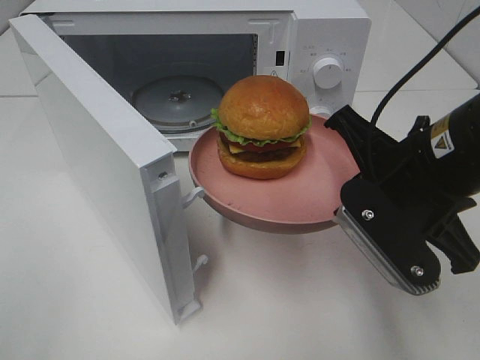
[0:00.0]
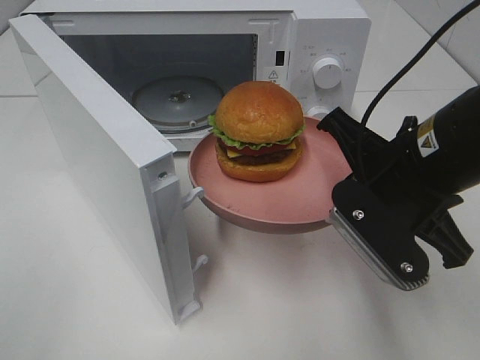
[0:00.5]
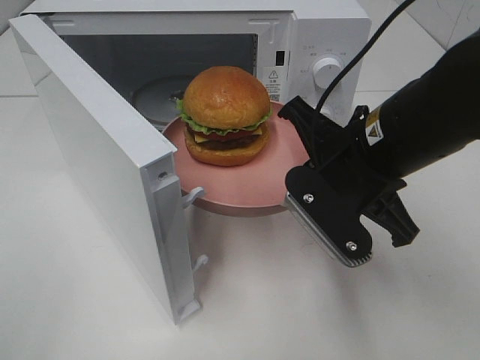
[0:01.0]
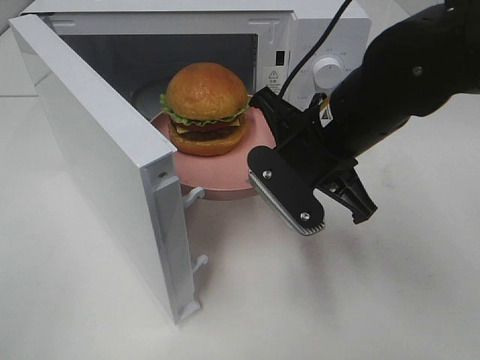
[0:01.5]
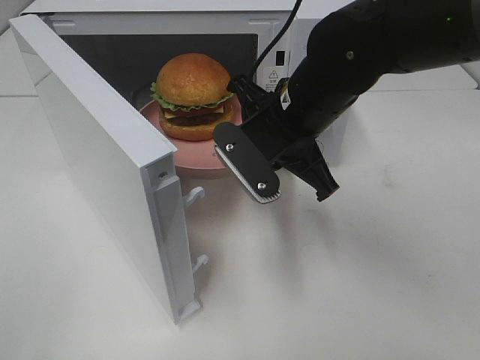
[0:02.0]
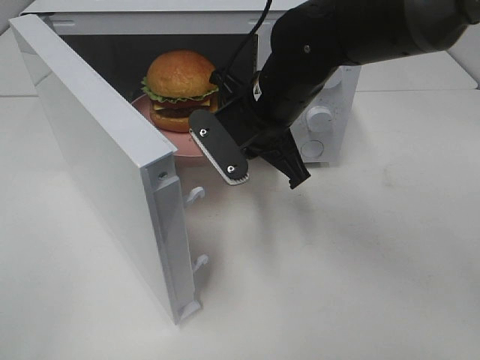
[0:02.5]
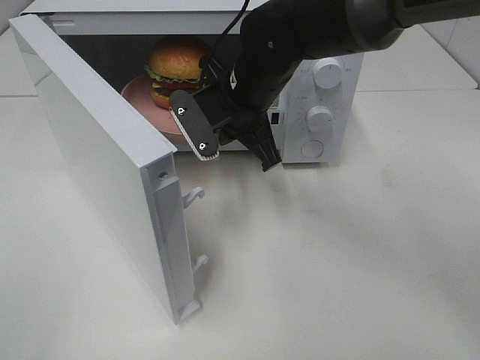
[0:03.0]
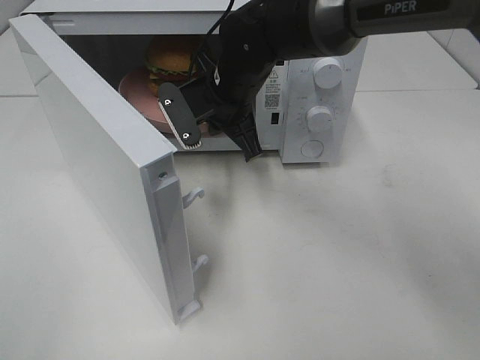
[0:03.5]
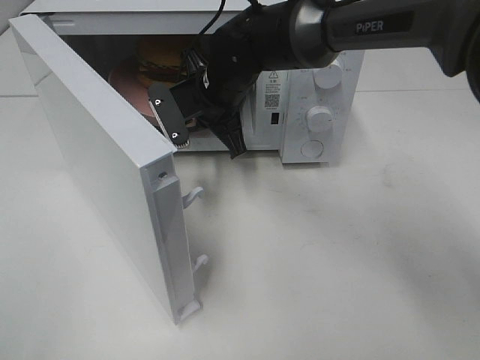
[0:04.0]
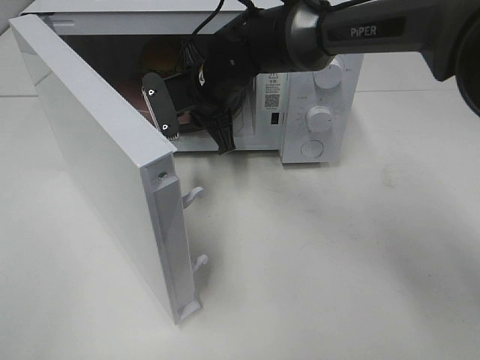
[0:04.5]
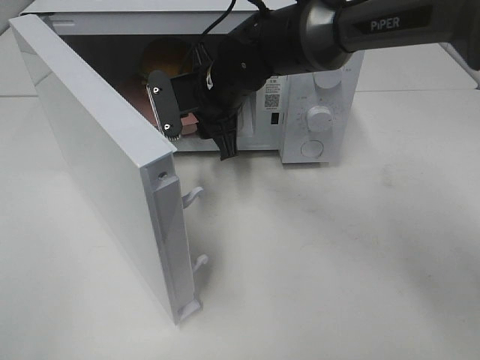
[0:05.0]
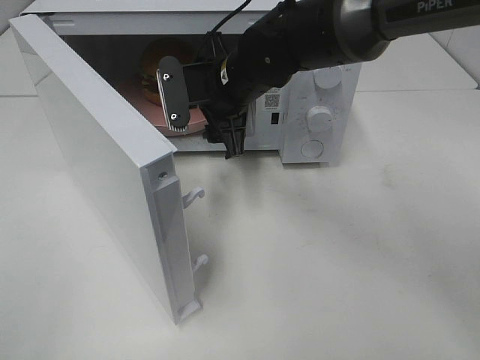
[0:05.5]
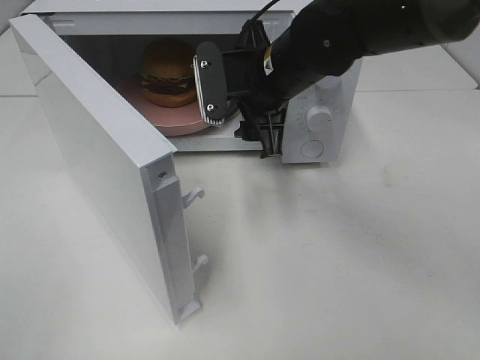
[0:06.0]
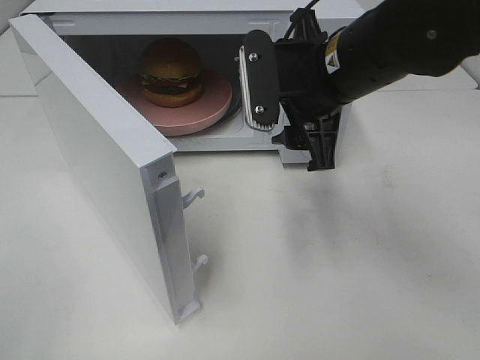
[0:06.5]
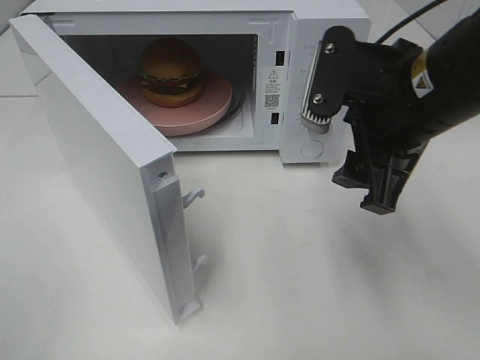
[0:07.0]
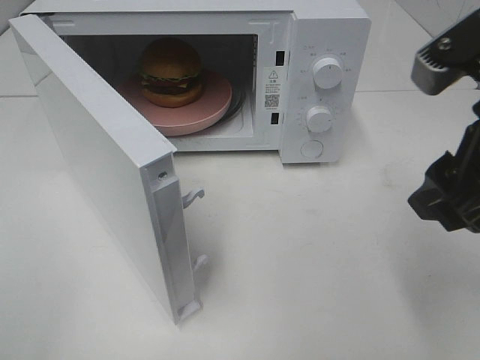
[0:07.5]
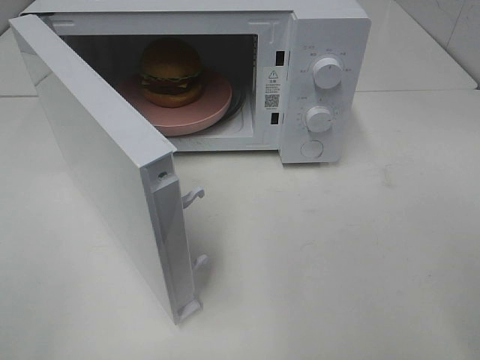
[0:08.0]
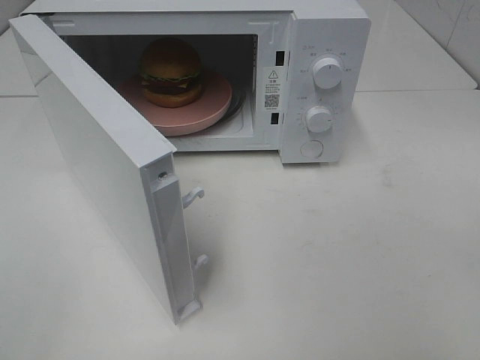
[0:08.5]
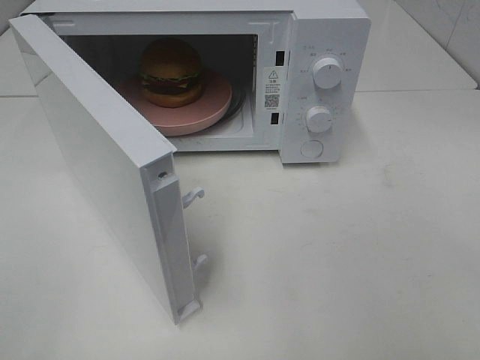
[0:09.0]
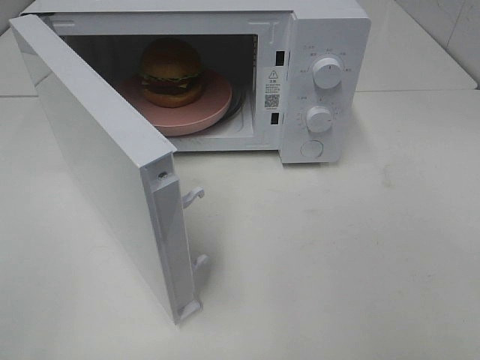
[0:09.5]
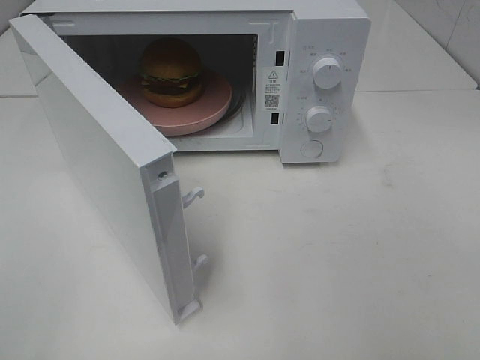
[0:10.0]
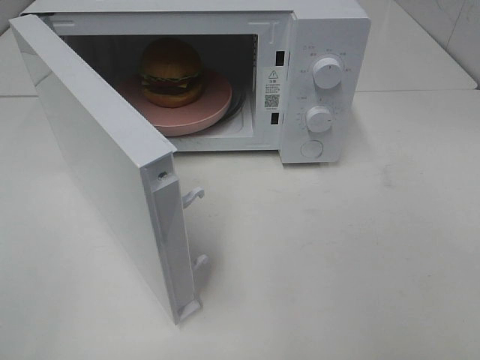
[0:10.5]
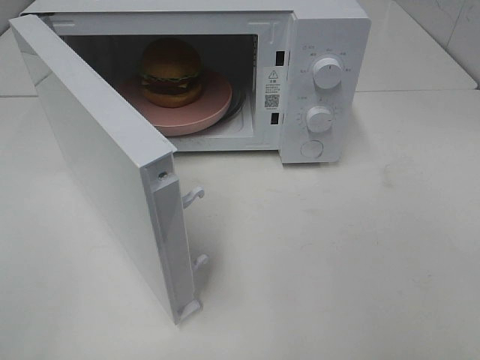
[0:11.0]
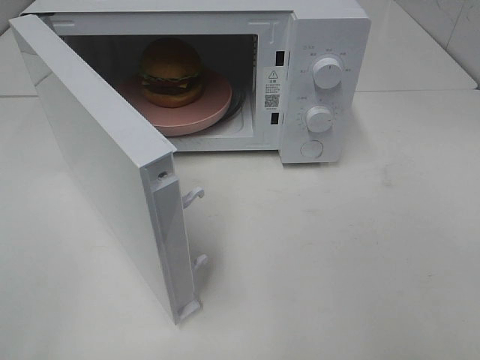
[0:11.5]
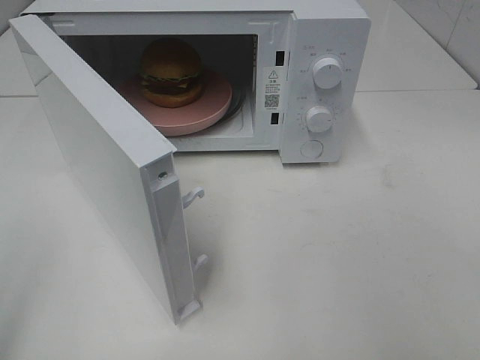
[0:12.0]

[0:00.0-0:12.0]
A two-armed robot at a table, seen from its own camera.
Task of the whole recording: Heat the burger.
Step, 0:00.0 to 0:05.0: Right hand: place the plate in the microwave.
0:00.0 to 0:02.0: The right gripper goes about 15 cm forward and to the left.
0:02.0 to 0:04.0: The right gripper heads forward and to the left, covering approximately 15 cm.
0:04.0 to 0:06.0: The right gripper shifts some 10 cm to the right and backward, and opens.
0:06.0 to 0:08.0: The right gripper heads backward, to the right and upward, covering about 30 cm.

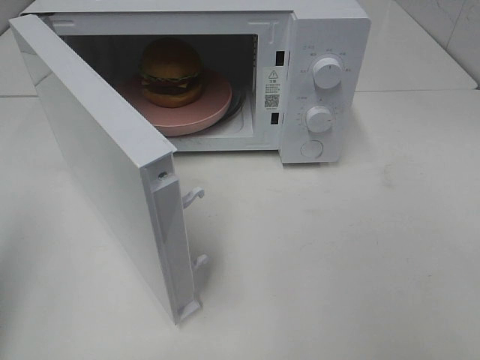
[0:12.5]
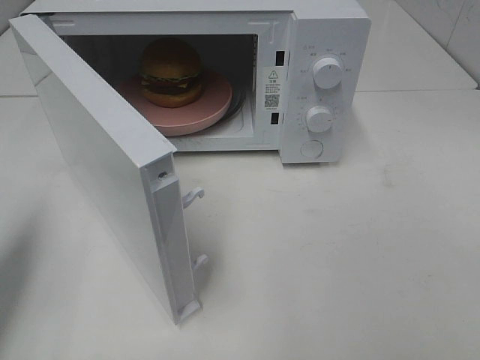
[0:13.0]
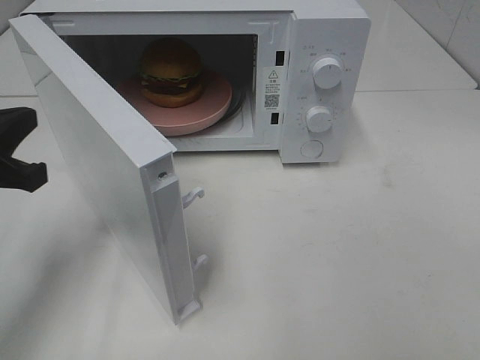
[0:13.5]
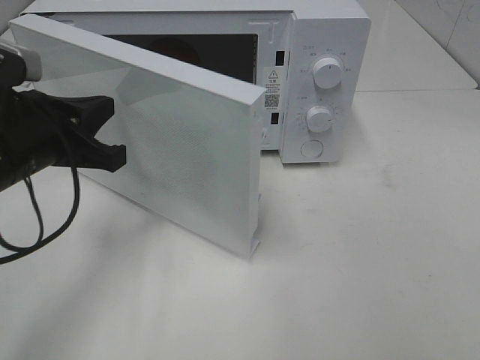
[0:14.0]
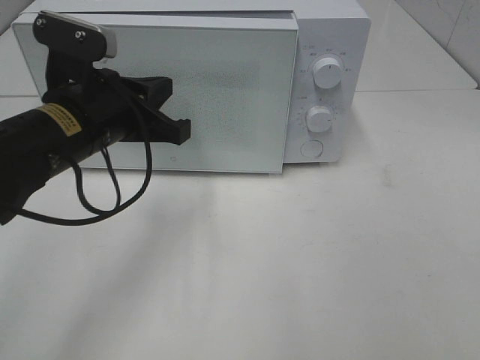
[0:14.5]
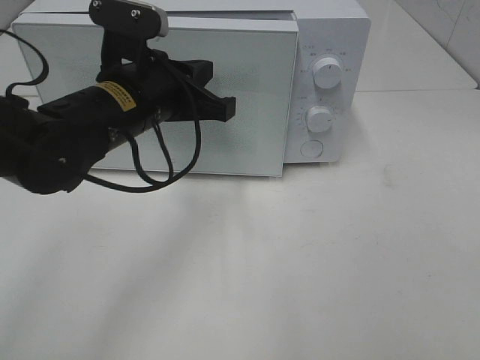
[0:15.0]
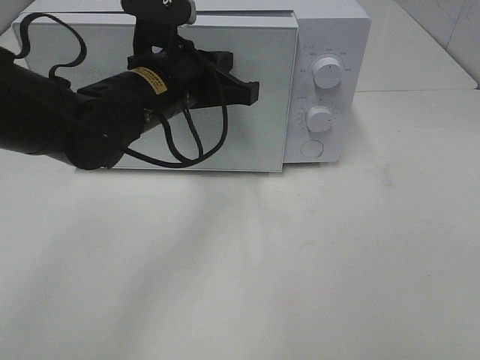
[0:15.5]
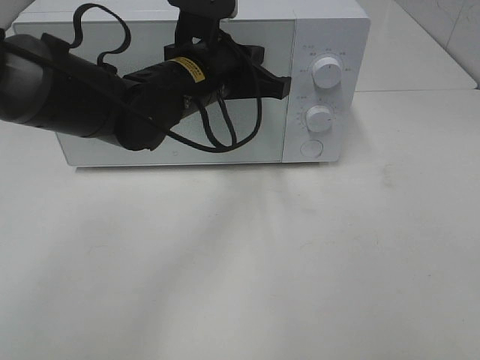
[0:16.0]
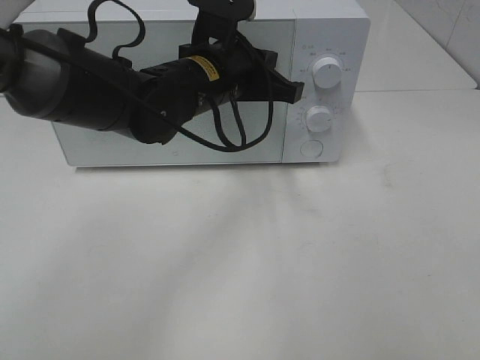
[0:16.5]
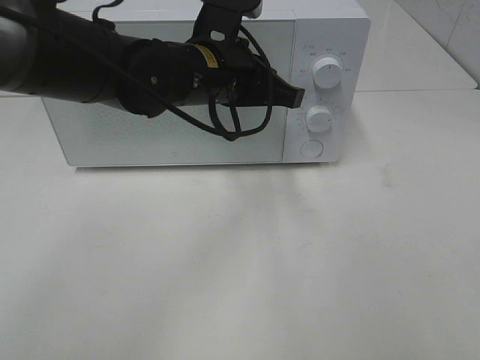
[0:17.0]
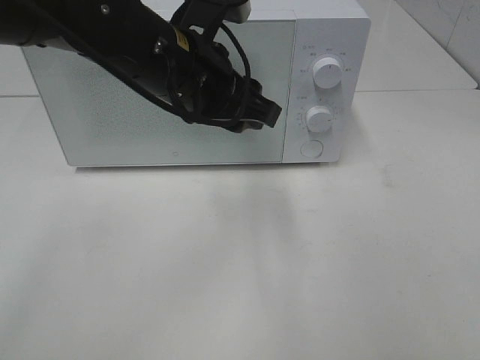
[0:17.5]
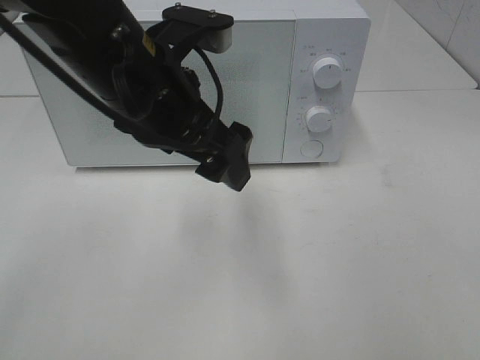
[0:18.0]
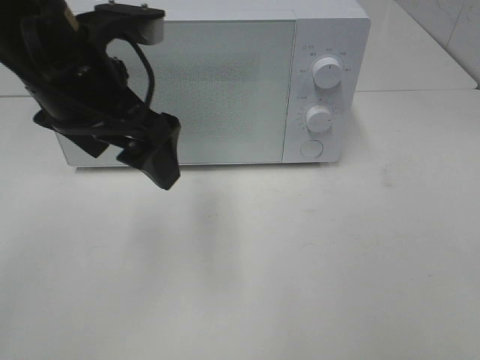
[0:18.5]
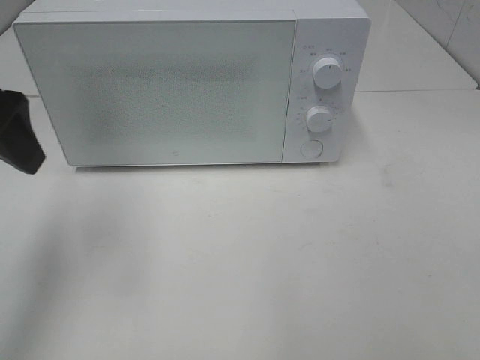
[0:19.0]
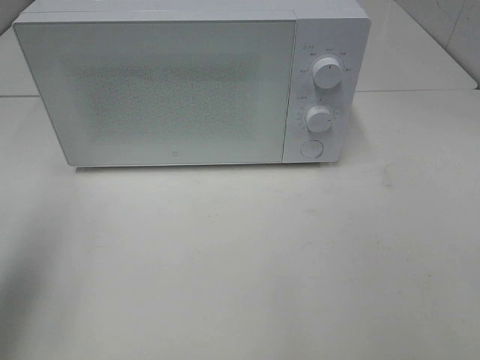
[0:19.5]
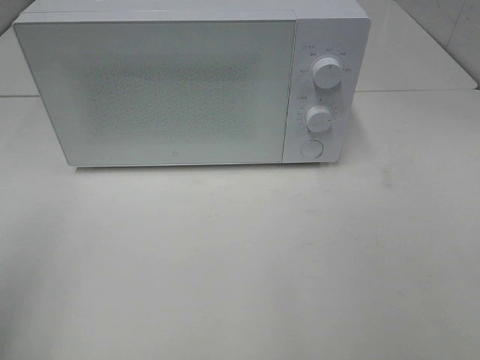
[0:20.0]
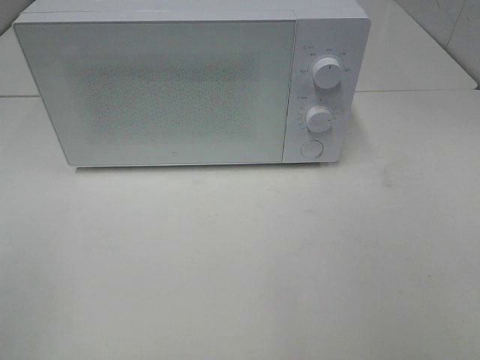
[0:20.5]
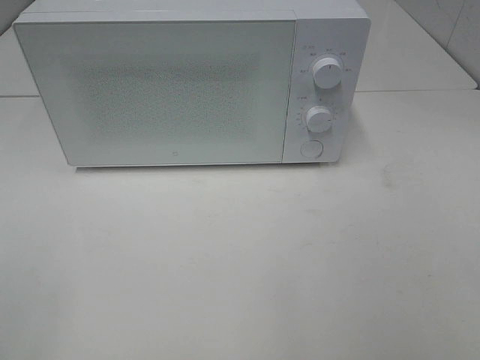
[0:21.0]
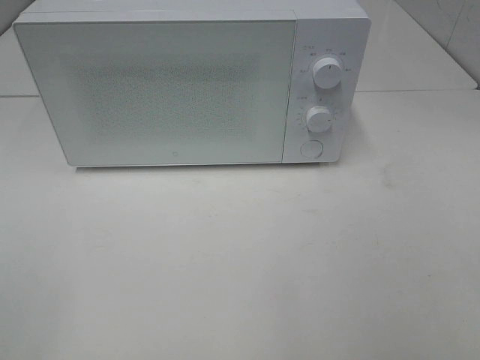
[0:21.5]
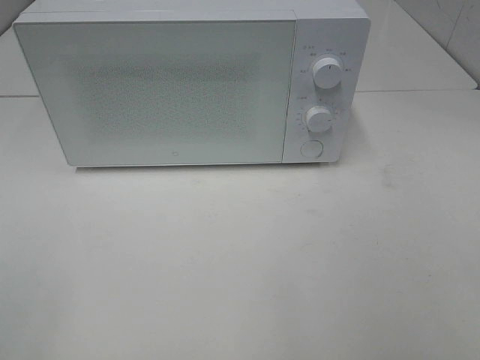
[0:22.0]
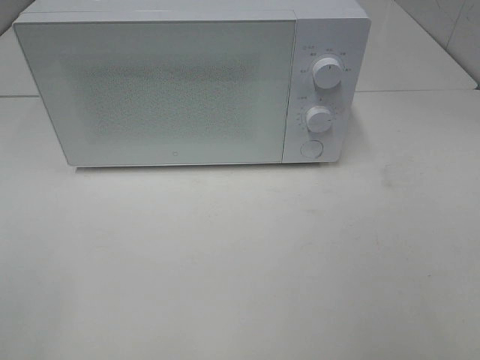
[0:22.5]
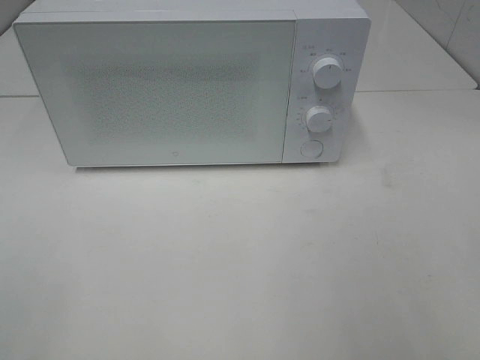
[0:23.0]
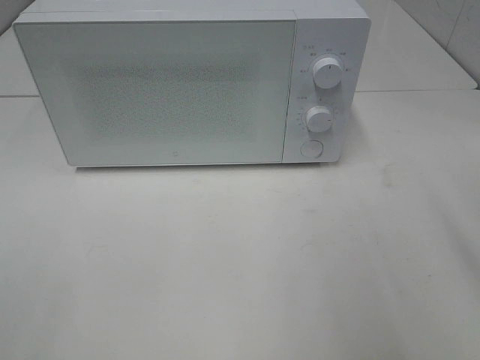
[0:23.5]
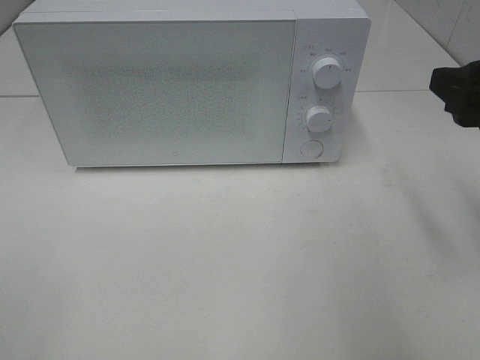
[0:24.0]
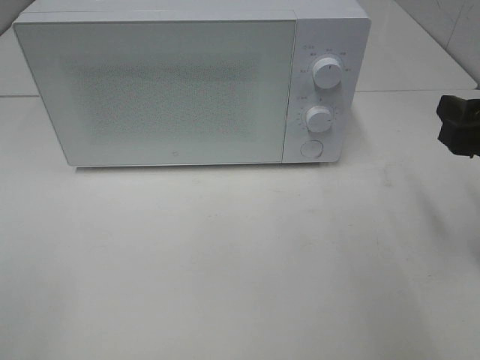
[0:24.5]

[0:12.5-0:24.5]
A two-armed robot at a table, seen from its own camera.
Task of the whole recording: Heat the burger.
Step, 0:12.5 to 0:17.0: Left hand: close the microwave door.
0:12.5 to 0:14.5: The left gripper heads to the right, forward and downward, covering approximately 25 cm.
0:14.5 to 0:16.5: The left gripper shifts approximately 15 cm to the right and forward.
0:16.5 to 0:18.5: The left gripper moves to the left, backward and upward, some 15 cm, and opens up.
0:18.5 to 0:20.5: The left gripper travels backward and to the left by roughly 30 cm.
0:22.5 to 0:24.5: The right gripper heads forward and downward, covering approximately 20 cm.

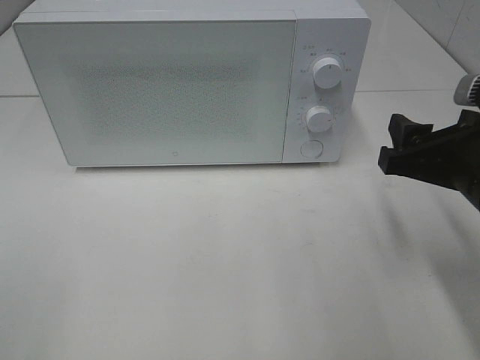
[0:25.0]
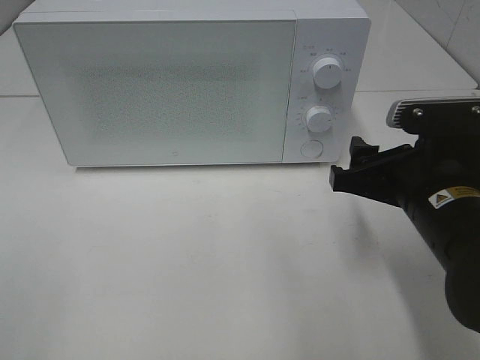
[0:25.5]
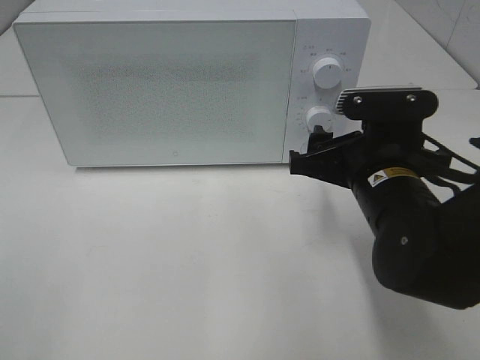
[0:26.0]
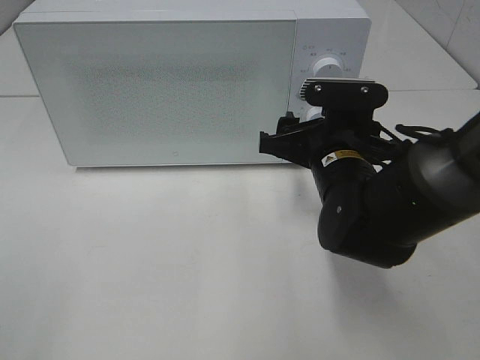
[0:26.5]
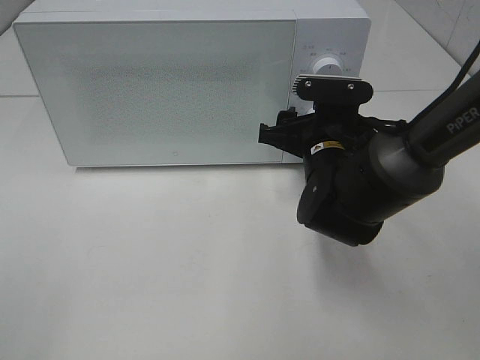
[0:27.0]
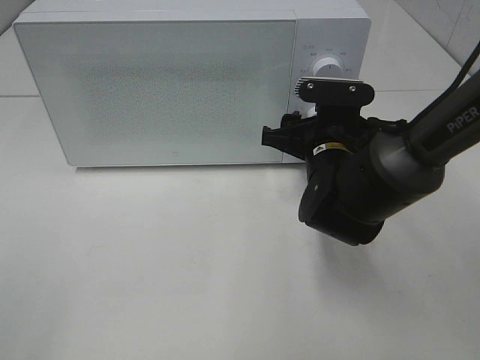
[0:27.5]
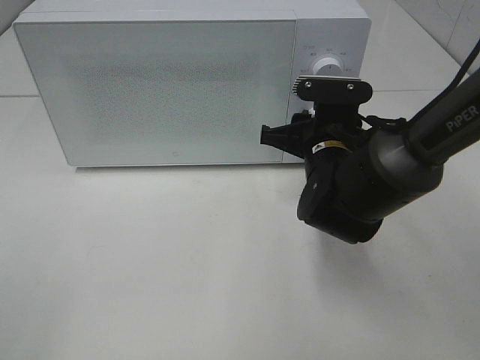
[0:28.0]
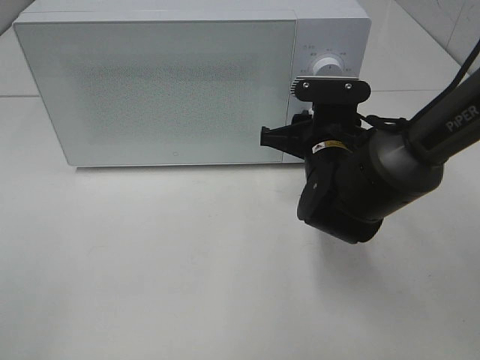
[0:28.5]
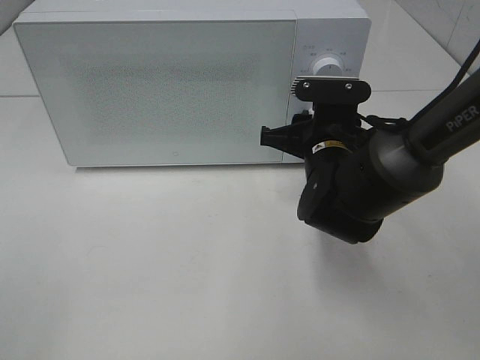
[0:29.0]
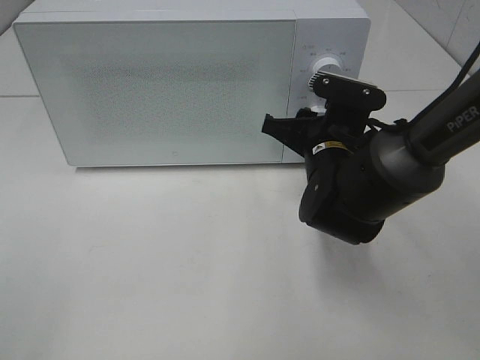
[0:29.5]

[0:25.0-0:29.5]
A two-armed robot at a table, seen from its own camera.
Task of the whole recording: Heat the burger.
0:25.0 to 0:27.0: The right gripper goes approximately 15 cm forward, to the left and downward.
0:27.0 to 0:29.5: The right gripper closes.
